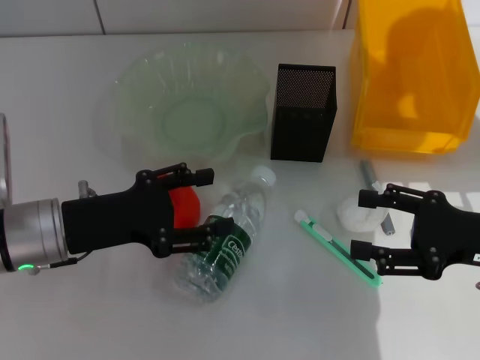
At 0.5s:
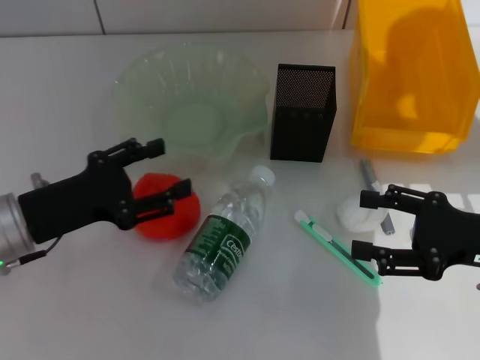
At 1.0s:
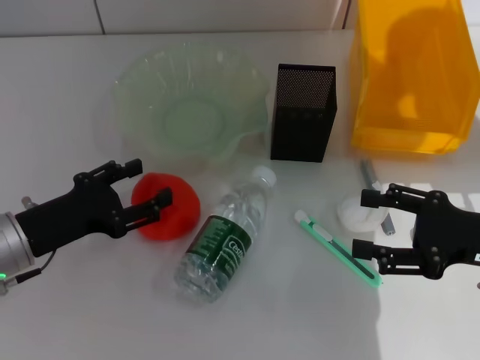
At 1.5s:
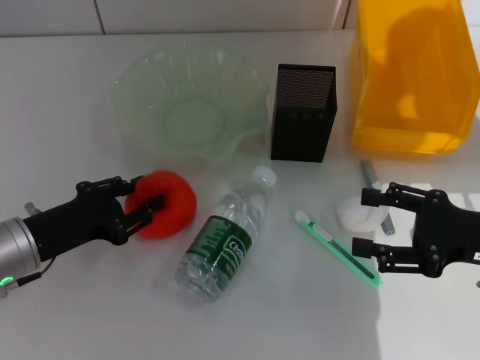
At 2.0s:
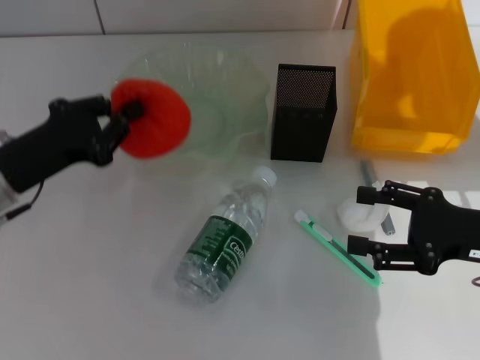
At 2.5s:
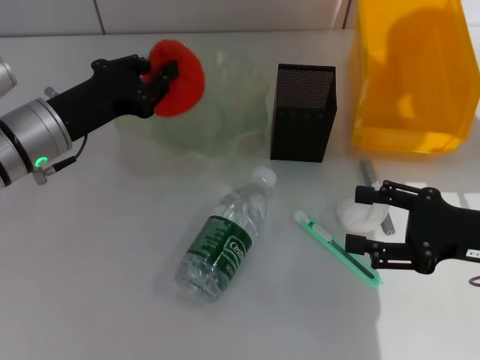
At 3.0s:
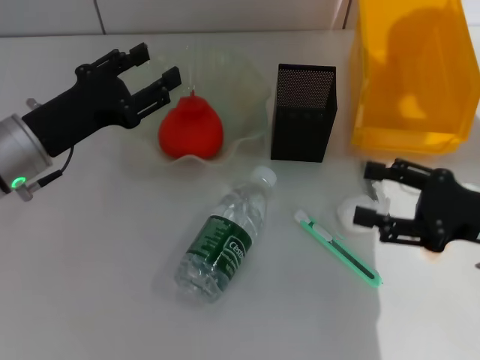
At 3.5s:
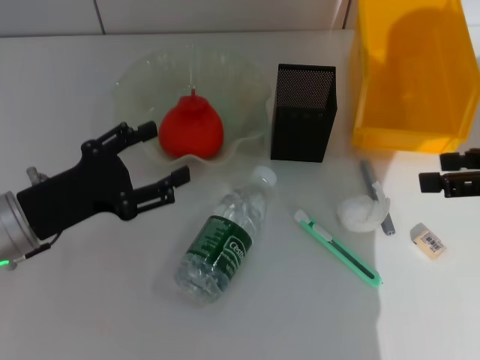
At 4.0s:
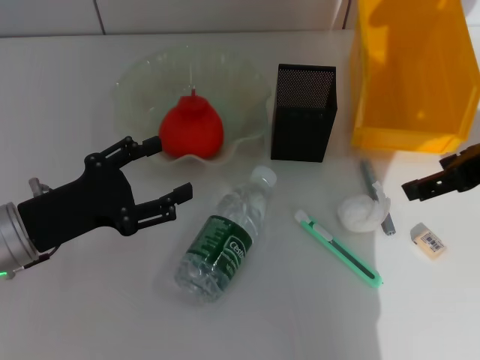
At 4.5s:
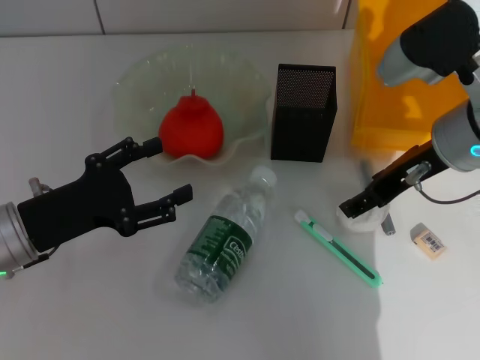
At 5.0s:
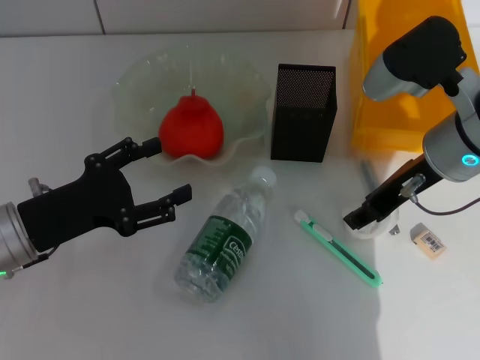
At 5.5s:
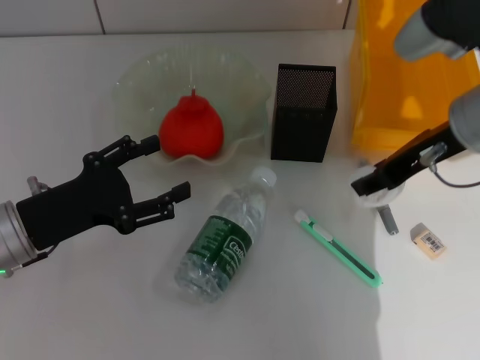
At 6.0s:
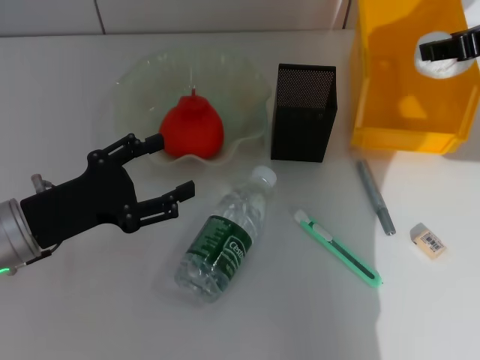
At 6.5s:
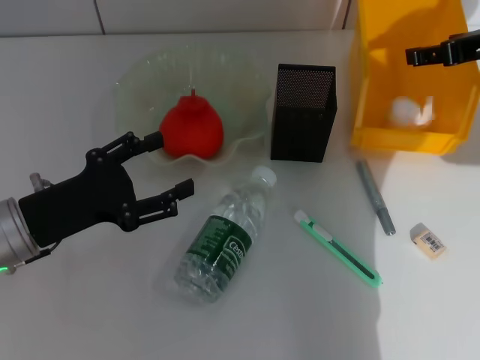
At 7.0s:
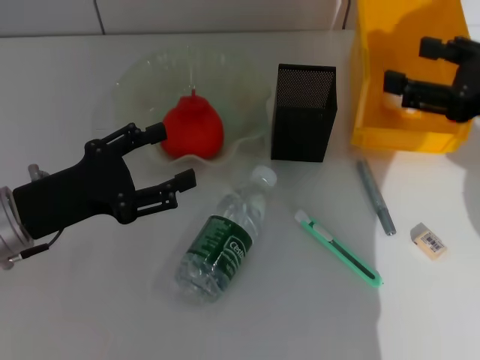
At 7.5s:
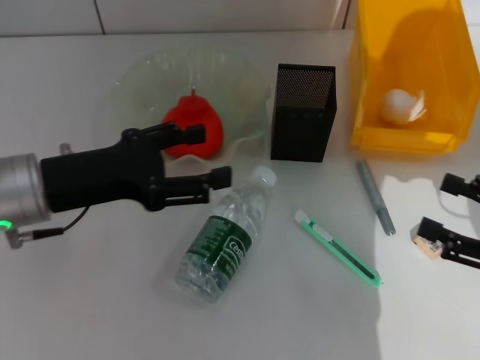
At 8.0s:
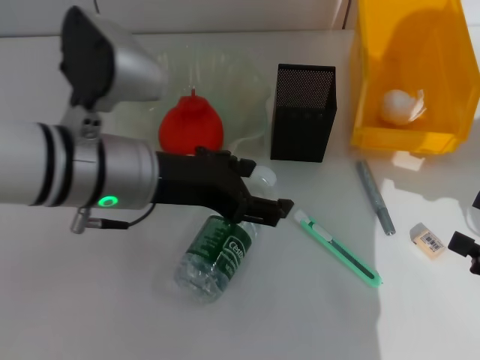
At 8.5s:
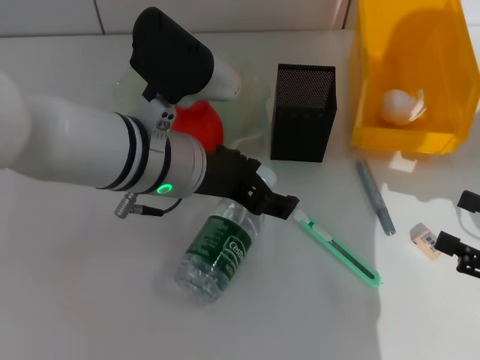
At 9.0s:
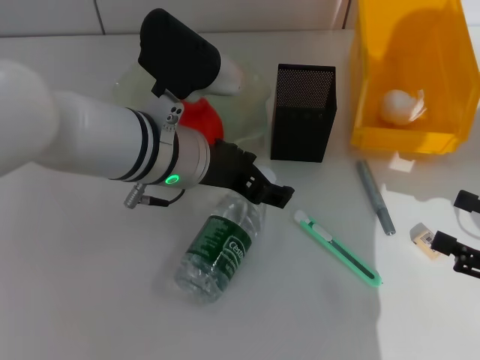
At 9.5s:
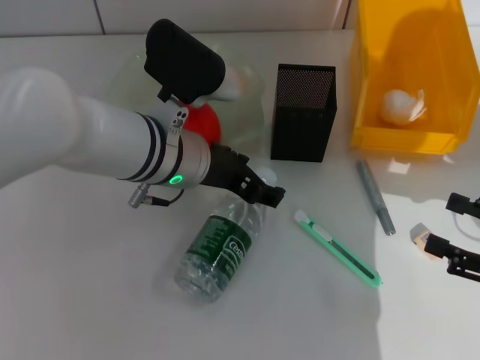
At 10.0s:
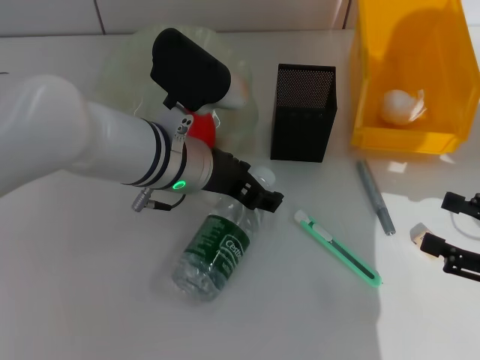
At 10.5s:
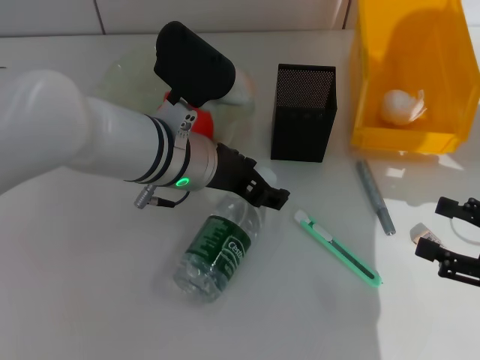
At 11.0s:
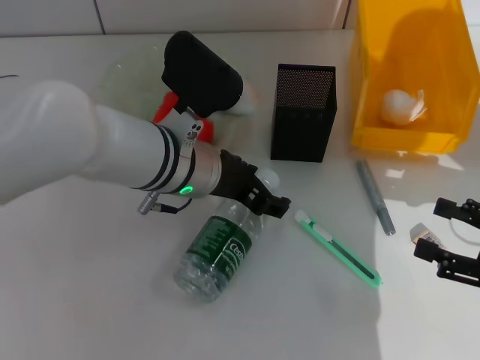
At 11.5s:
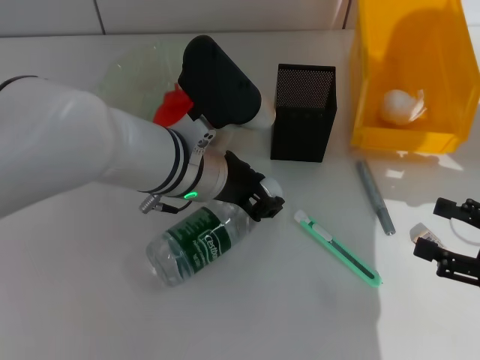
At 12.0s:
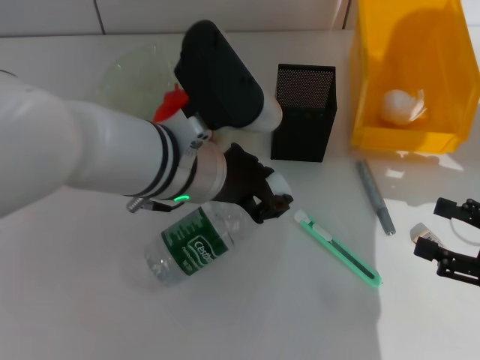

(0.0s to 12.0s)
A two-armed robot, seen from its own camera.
Step, 0.0s - 1.0s: Grab the orange with the left hand.
Step, 1.5s - 2.5s: Place the orange into the fruit bowl with the left hand.
Step, 3.0s - 5.0s: Grab the paper ball with the right hand.
Step, 5.5s - 6.5s: Place the paper ball into the trash can with the right hand.
Step, 7.0s - 11.5s: Grab the water bottle with the left hand.
0.0s - 2.0s: The left gripper closes up.
2.0s - 4.0s: The left gripper opens up. Meanwhile the right gripper shifts approximately 15 cm upward.
4.0s - 6.0s: The right gripper heads forward, covering roughly 5 cm, goes downward and returns, some 5 cm each way, and closes its fingers.
6.0s - 8.0s: The left gripper heads to the right and upward, covering approximately 15 cm, while the right gripper shifts approximately 25 cm backward, downward and to the right, and opens.
8.0s - 10.0s: The left gripper shifts about 5 cm downward and forward.
10.0s - 12.0s: The left gripper changes place by approximately 5 cm, and closes up.

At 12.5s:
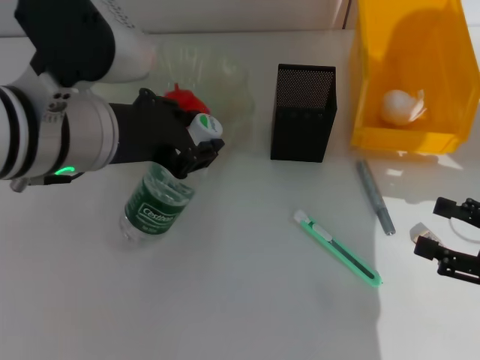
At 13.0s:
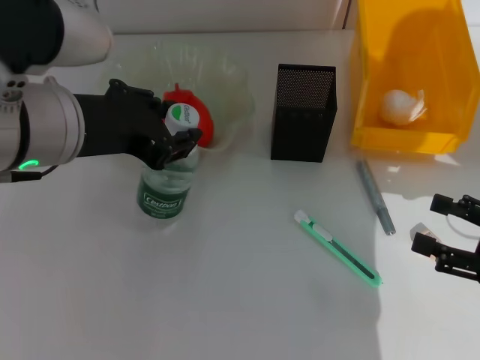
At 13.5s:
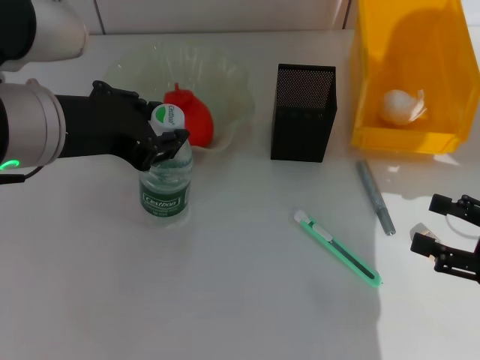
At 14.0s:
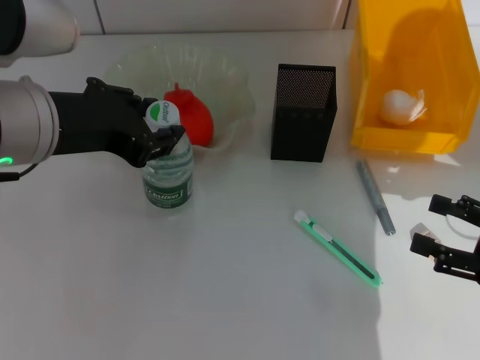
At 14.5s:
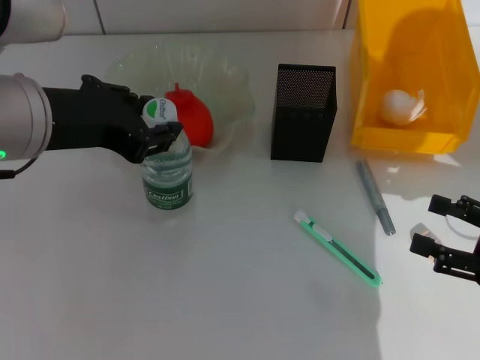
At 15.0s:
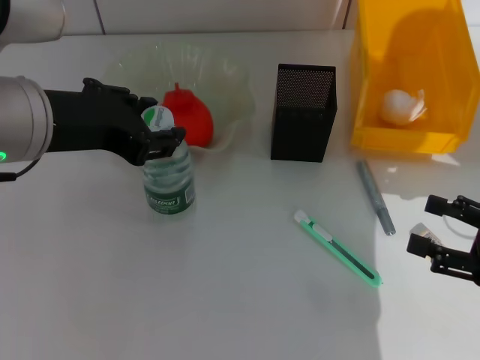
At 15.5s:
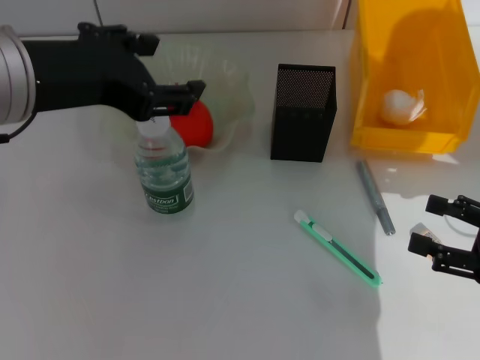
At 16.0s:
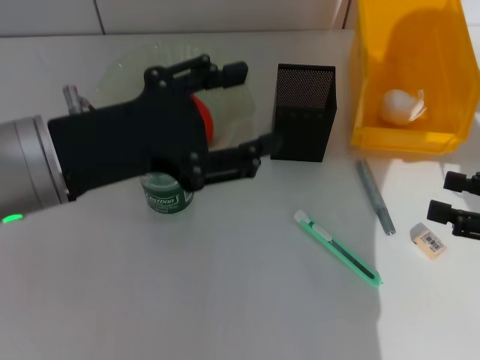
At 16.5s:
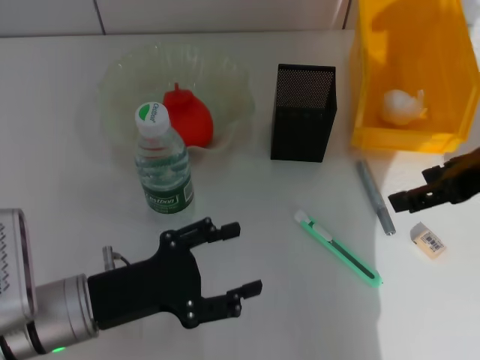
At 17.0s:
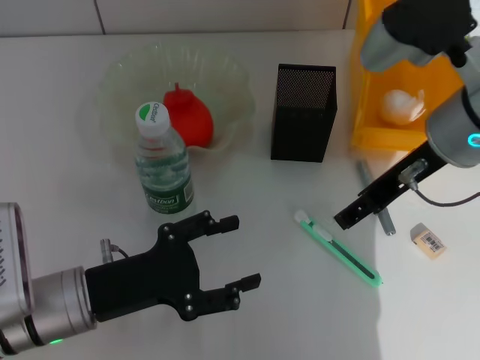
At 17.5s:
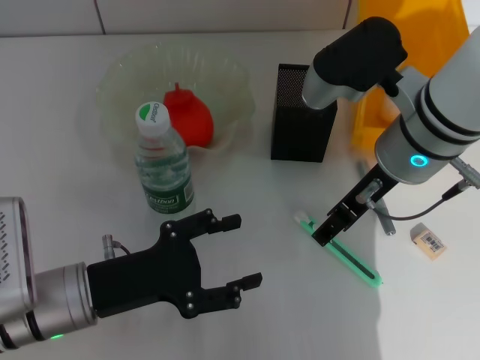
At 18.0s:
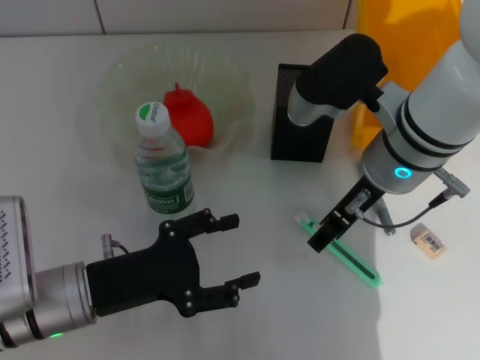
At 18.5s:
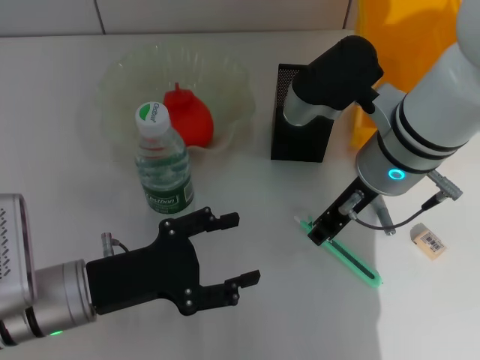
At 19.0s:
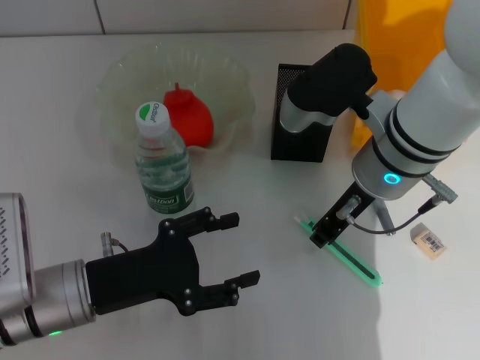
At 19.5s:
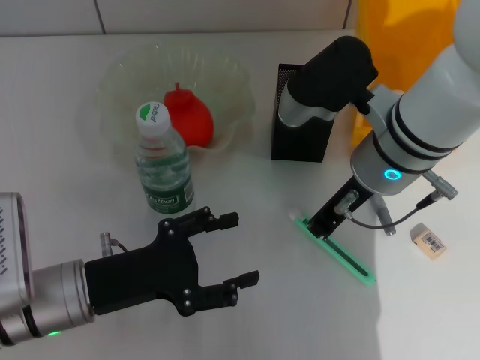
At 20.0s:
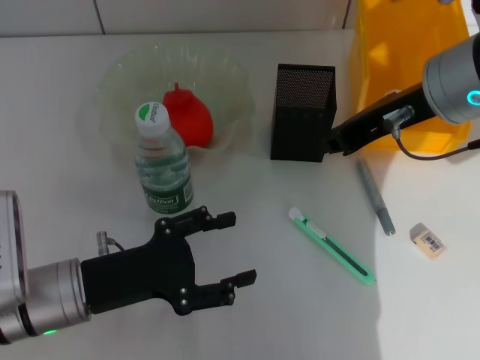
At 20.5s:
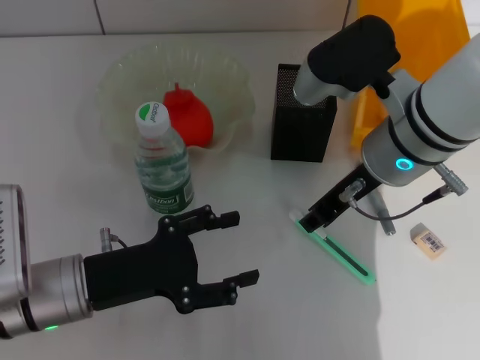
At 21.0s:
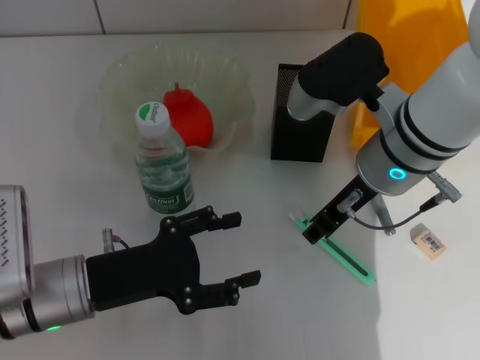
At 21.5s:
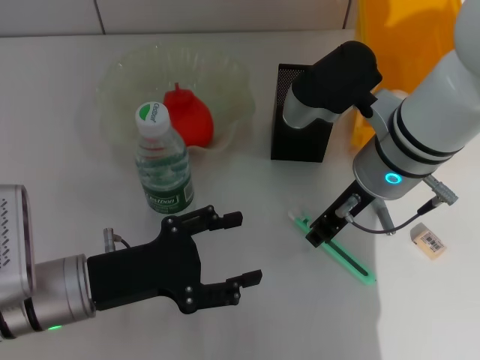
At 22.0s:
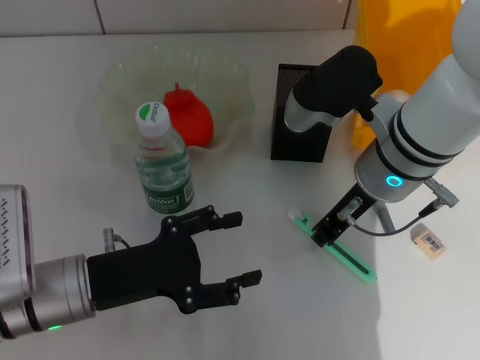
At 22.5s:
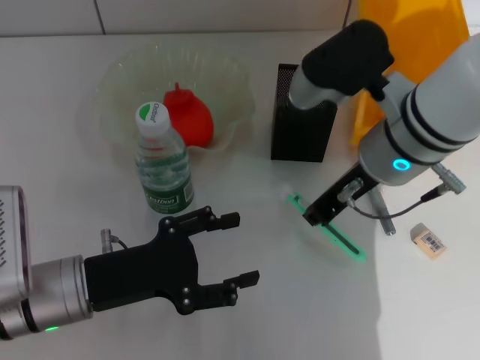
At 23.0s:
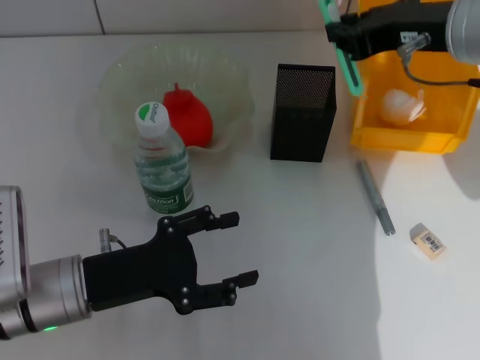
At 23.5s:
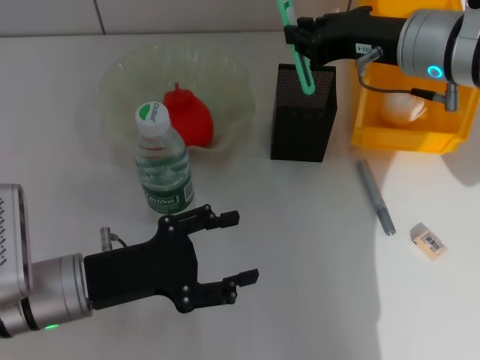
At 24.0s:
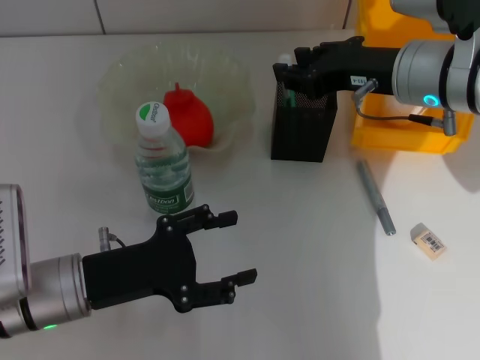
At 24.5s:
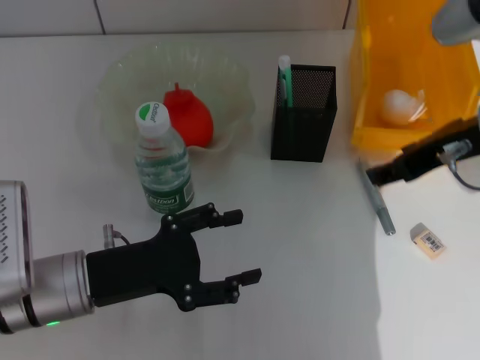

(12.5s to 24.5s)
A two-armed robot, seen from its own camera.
Step, 12.5s - 15.0s: Place the water bottle on the table with the left hand.
Step, 15.5s - 21.5s: Grab the blue utility knife with the right hand.
Step, 22.0s - 24.0s: Place the blue utility knife into the pen holder with the right hand.
12.5s - 14.5s: The grippers move only a little.
14.5s - 16.5s: The left gripper heads downward, covering roughly 20 cm, and opens its fingers. Meanwhile the right gripper is displaced upward, forward and to the left by approximately 20 cm.
16.5s - 18.5s: The right gripper is displaced to the left and downward by about 15 cm, and closes.
18.5s - 20.5s: The right gripper reaches about 5 cm upward, then returns.
20.5s - 22.5s: The grippers stay close to where they were, moving slightly.
22.5s - 24.5s: The right gripper shifts approximately 10 cm to the right, and opens up.

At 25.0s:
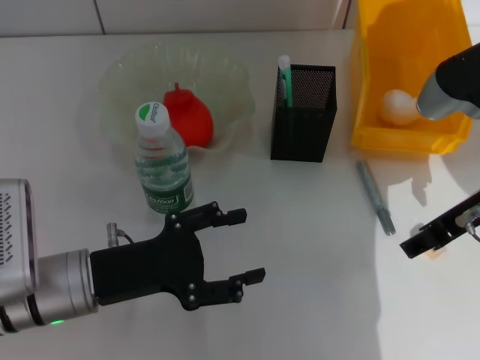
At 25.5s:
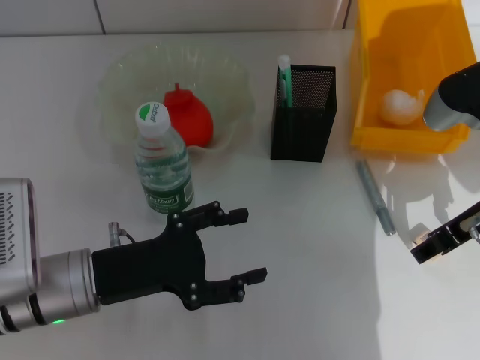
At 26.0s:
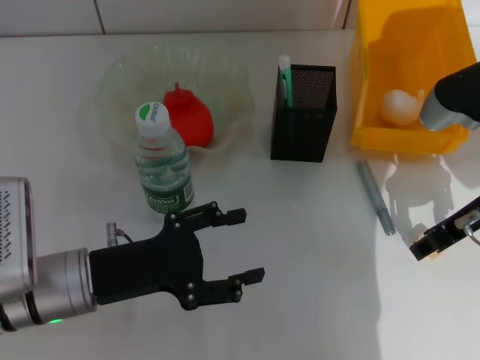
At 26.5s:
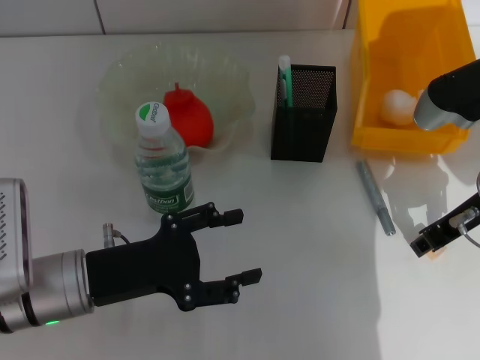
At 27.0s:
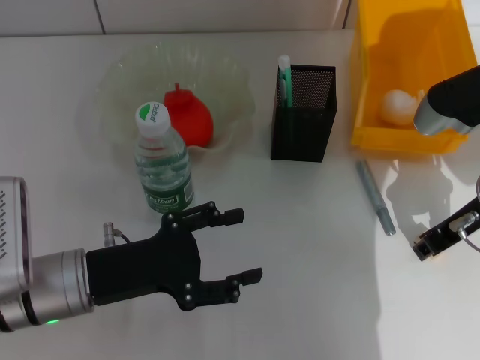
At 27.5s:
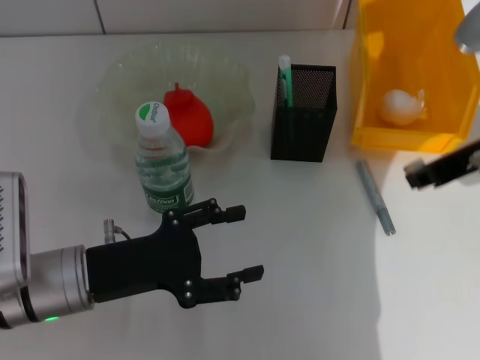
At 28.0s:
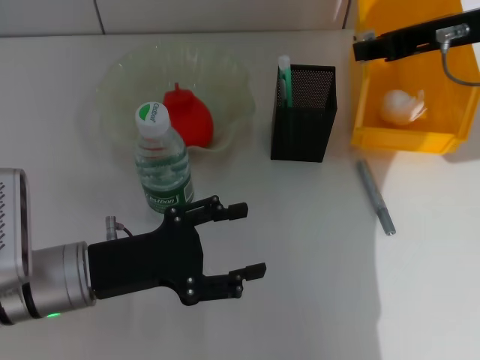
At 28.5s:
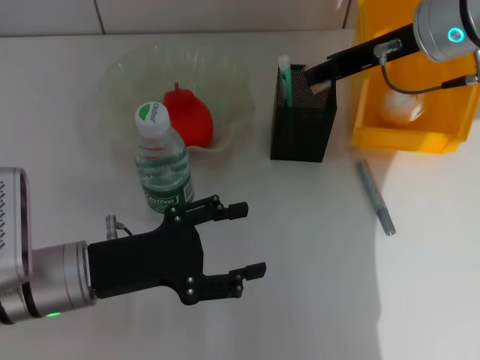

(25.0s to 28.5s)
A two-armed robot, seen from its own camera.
Step, 25.0s - 27.0s: Grab the eraser with the right hand.
25.0s - 27.0s: The right gripper shifts by roughly 5 cm, and closes.
27.0s - 28.5s: The right gripper moves forward and upward, about 10 cm.
